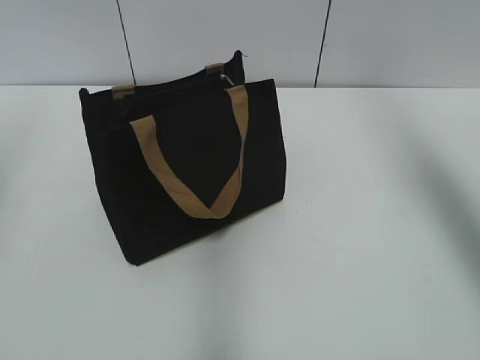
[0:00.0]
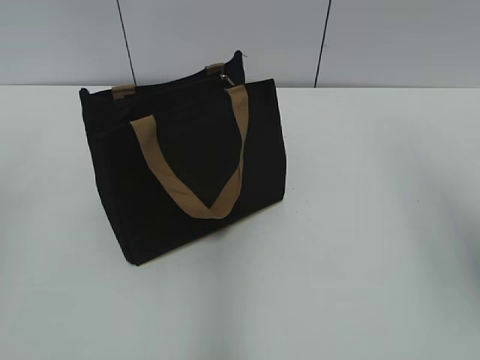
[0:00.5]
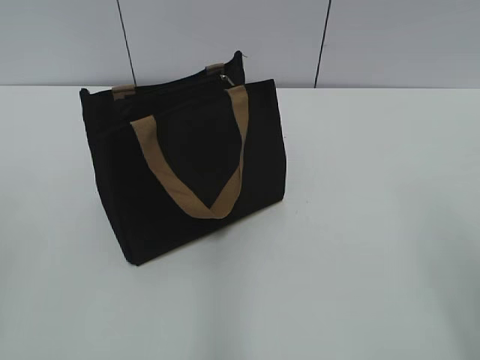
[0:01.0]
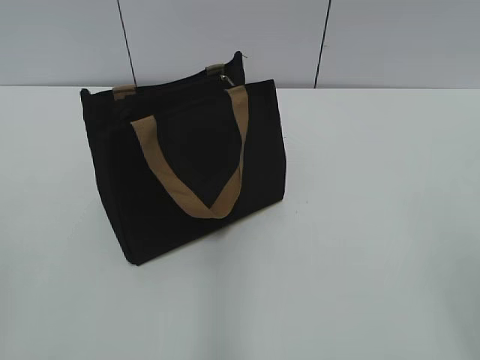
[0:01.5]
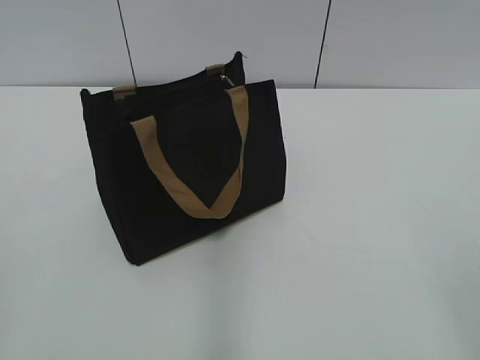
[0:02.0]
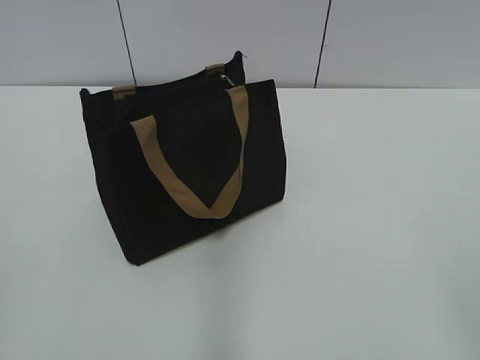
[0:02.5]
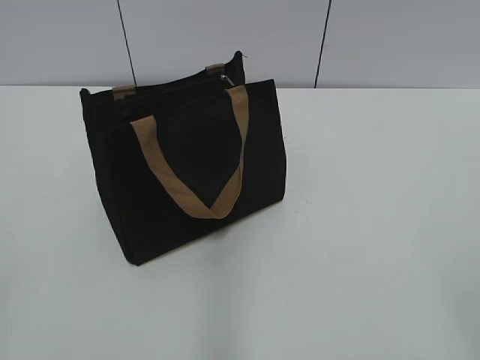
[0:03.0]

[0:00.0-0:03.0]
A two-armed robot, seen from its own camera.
0:00.0 to 0:01.5: The right gripper is displaced backward and downward by about 30 cm.
